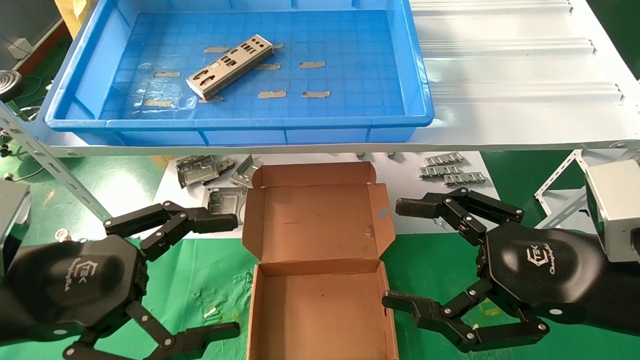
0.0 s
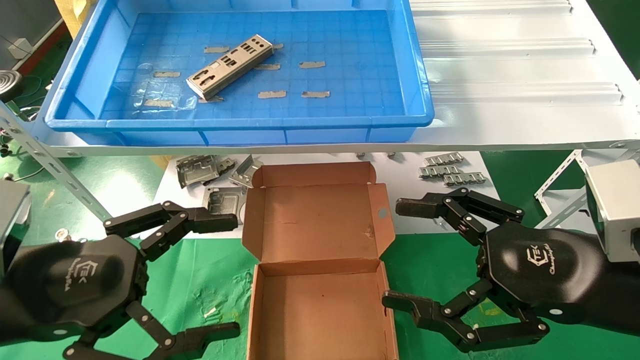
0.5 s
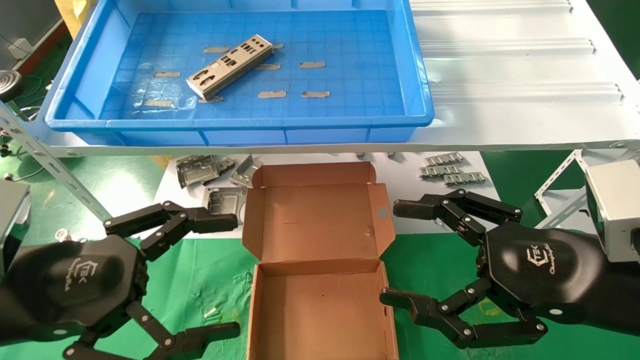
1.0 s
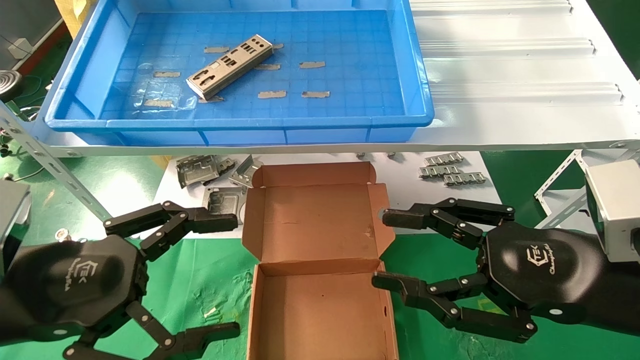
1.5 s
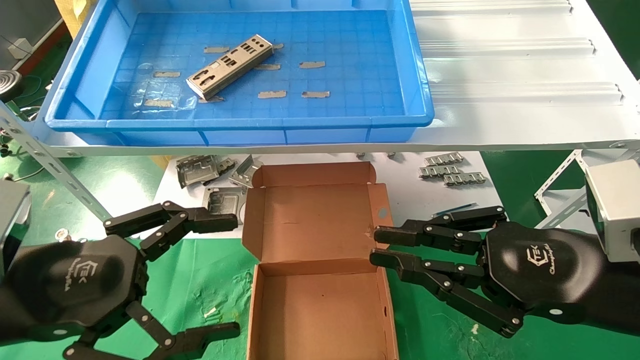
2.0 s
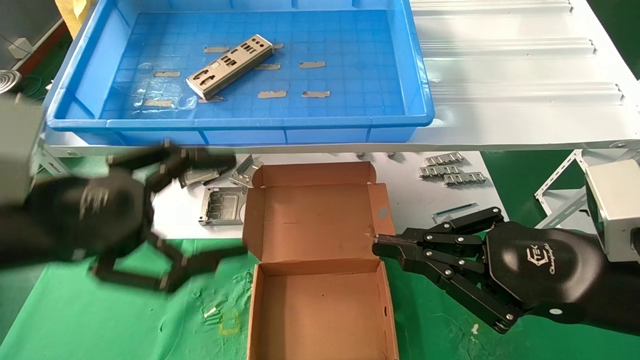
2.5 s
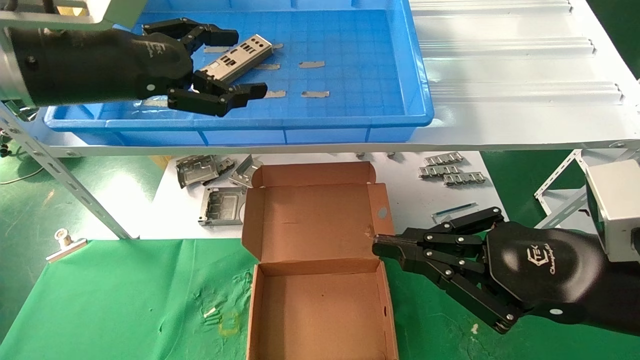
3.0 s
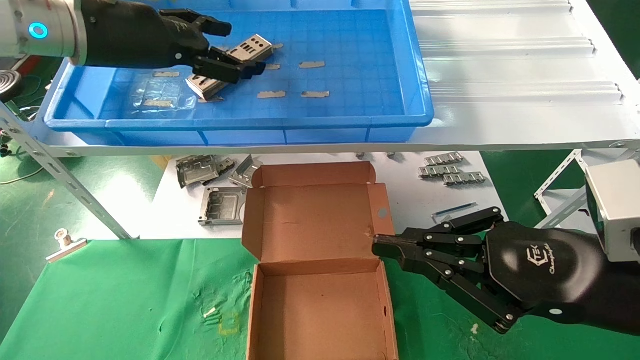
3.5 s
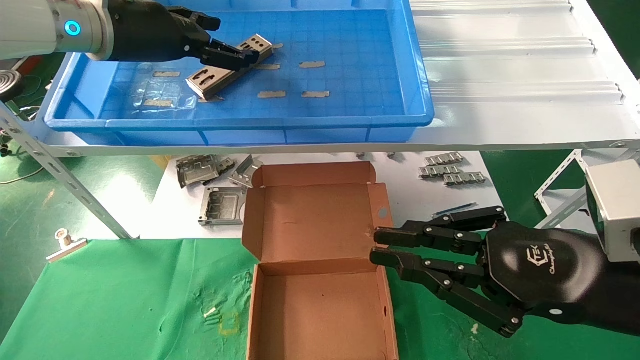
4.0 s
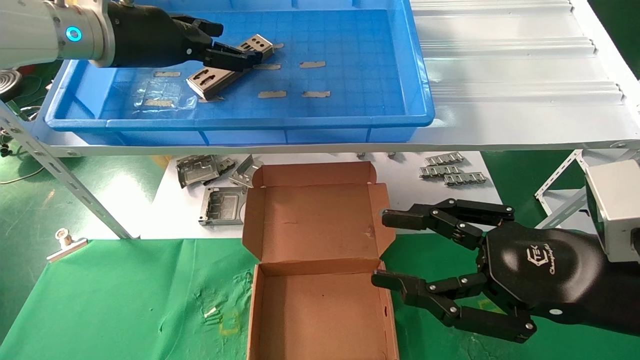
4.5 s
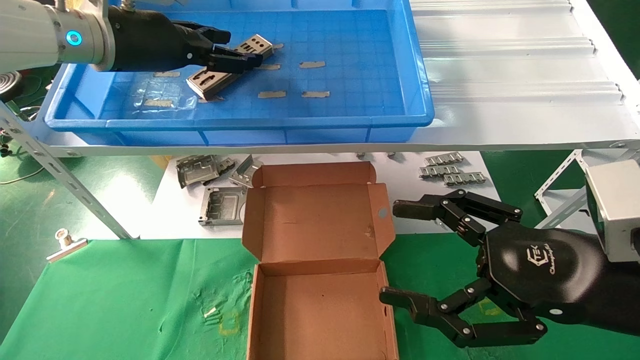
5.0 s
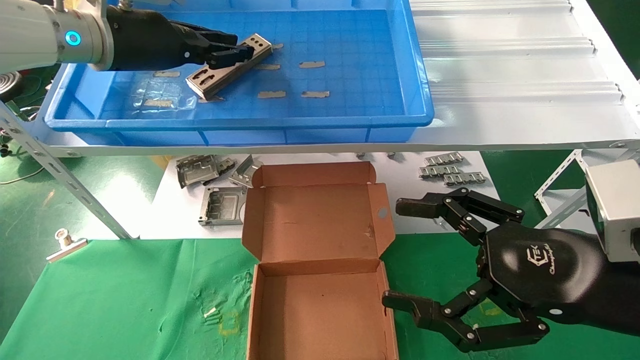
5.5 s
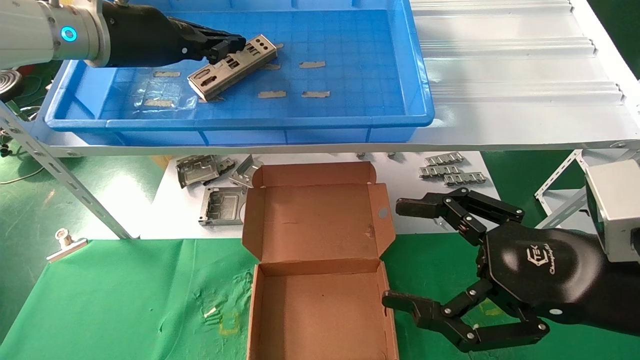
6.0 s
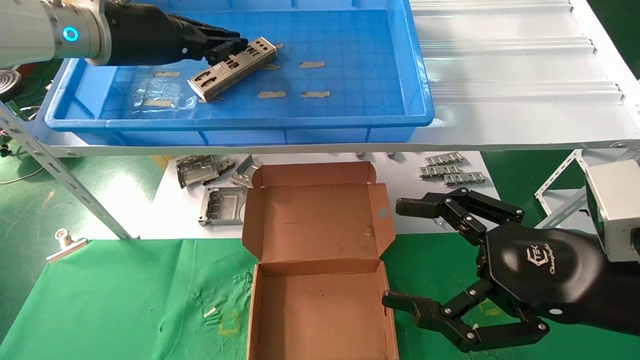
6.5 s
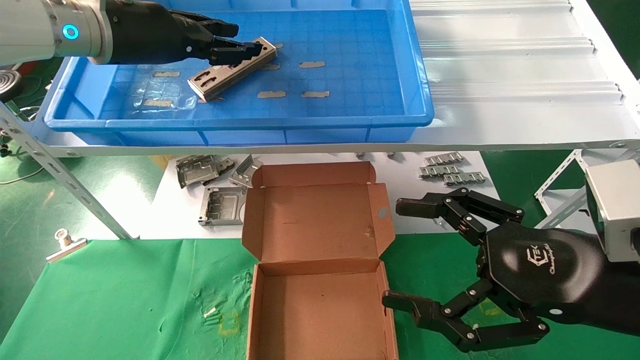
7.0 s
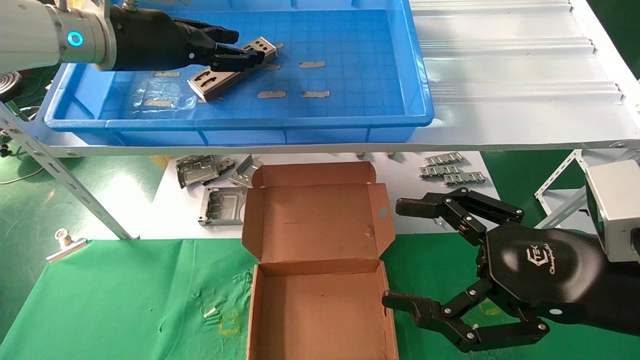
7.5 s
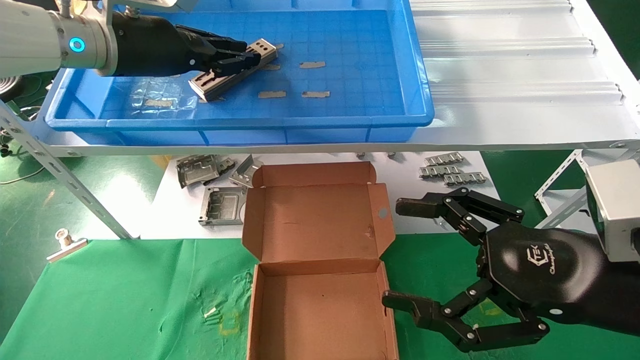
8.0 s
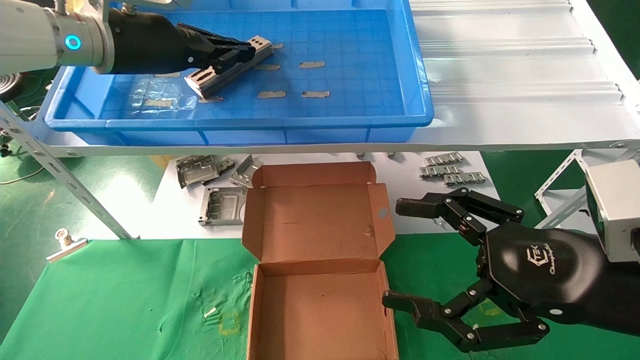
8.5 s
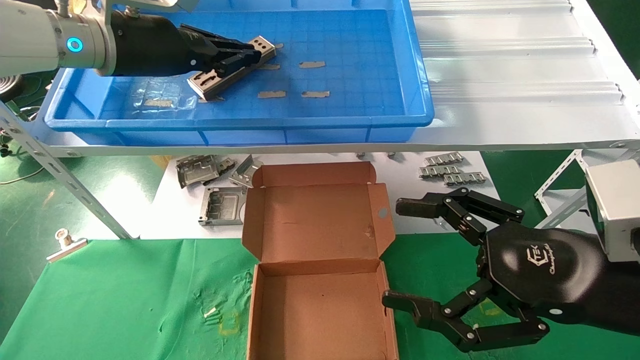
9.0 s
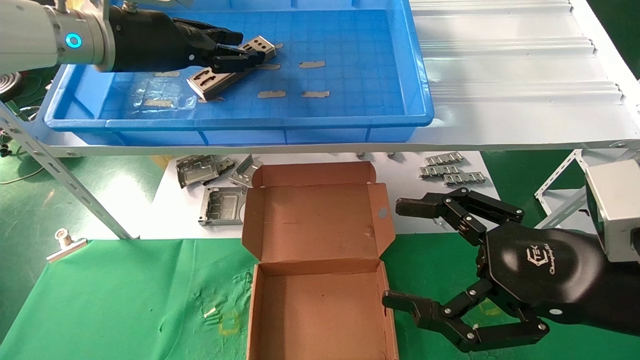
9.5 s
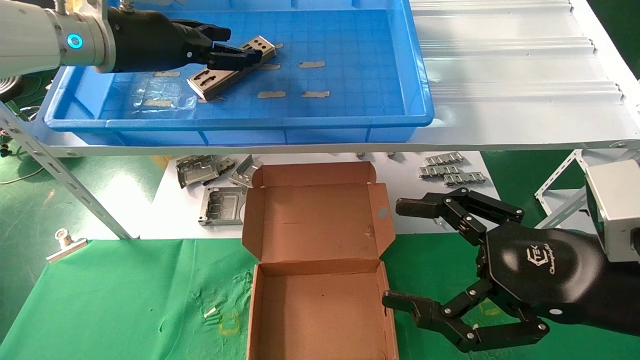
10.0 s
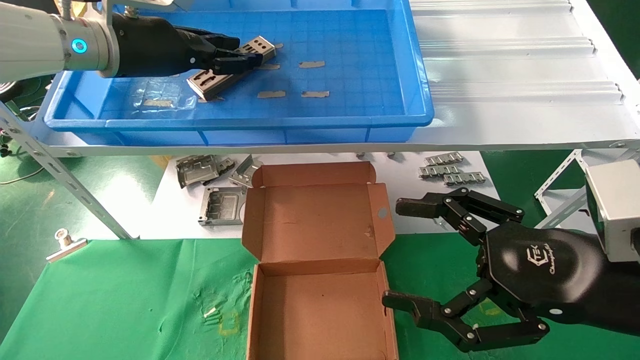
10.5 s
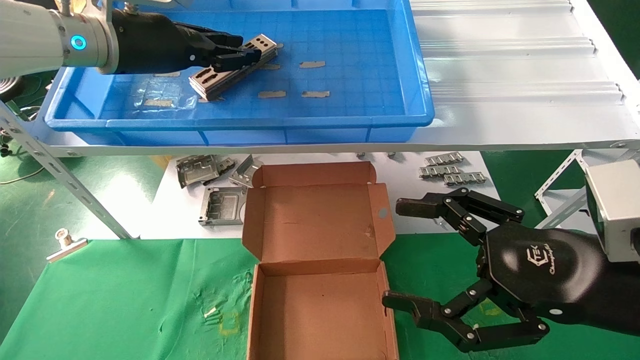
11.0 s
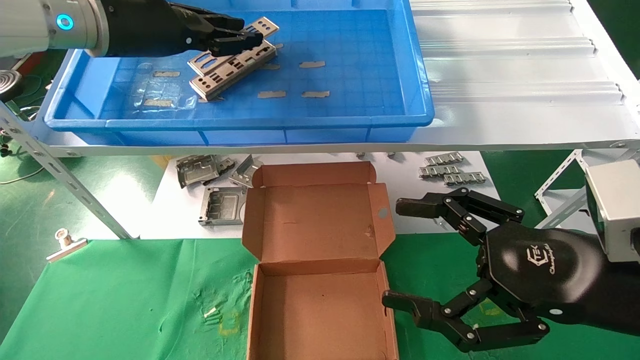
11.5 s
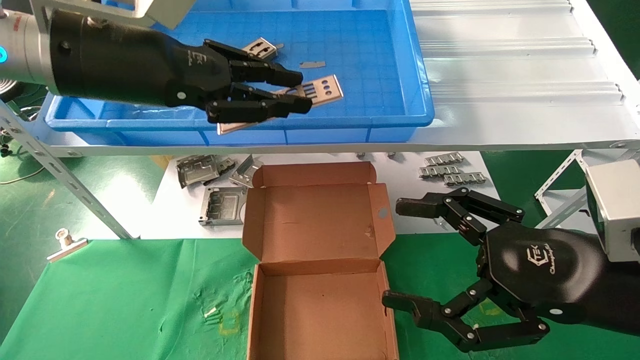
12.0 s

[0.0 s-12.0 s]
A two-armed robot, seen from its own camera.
Task of the whole recording: pick up the parts on the tray and put them in the cardboard box.
Step, 3.0 to 10.5 s: Pick up the IO bracket from the container box.
0.0 to 2.0 s: The right gripper closes up.
2.0 to 4.0 s: The left gripper moves forward and upward, approximately 30 cm.
4.0 to 6.0 s: The right gripper opens up; the left gripper closes.
6.0 to 8.0 s: The two grippers keep their place.
8.0 to 10.0 s: Neither gripper changes place.
10.0 to 12.0 s: The left gripper is displaced backward by approximately 10 cm, and closes.

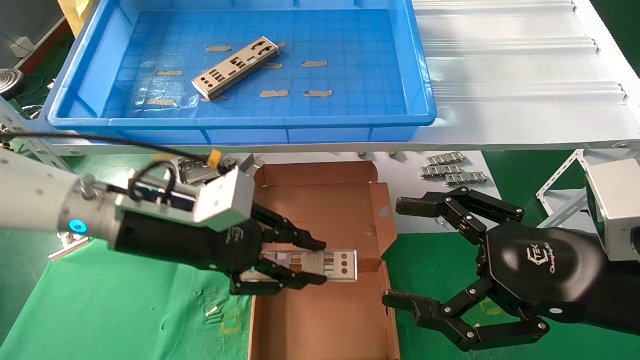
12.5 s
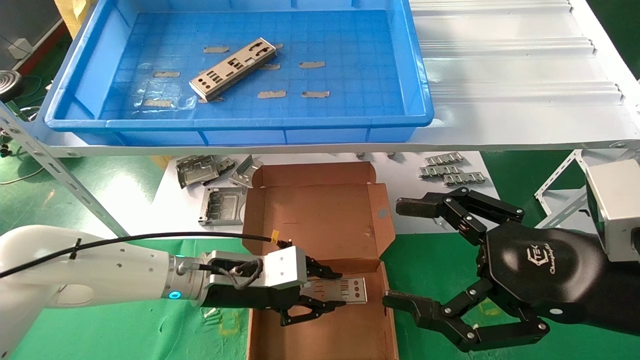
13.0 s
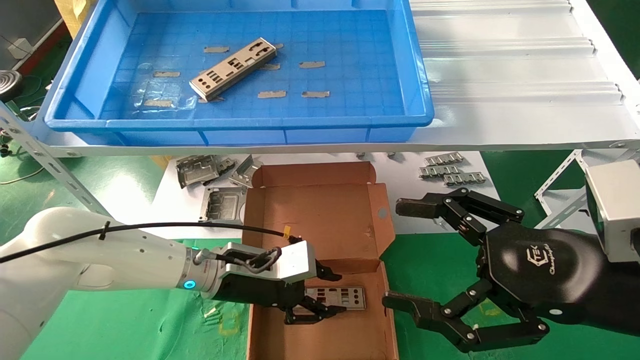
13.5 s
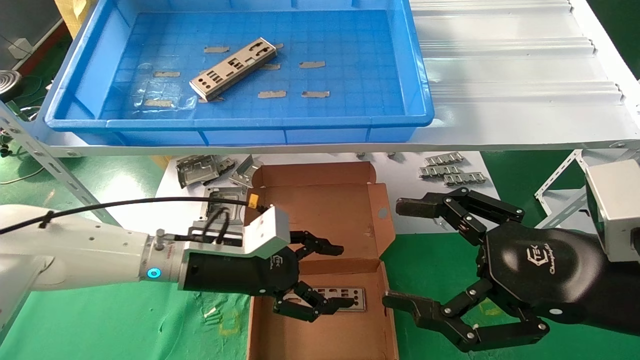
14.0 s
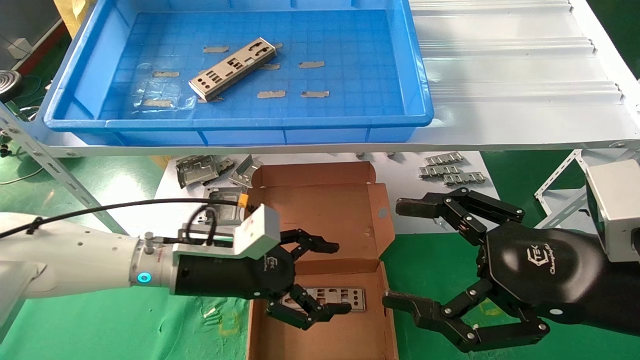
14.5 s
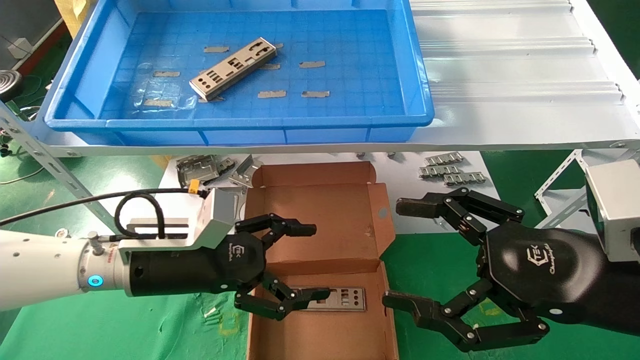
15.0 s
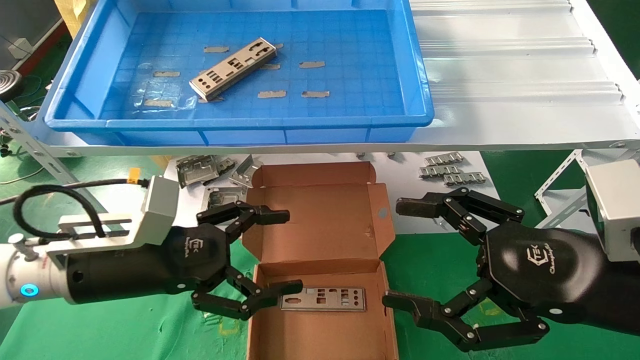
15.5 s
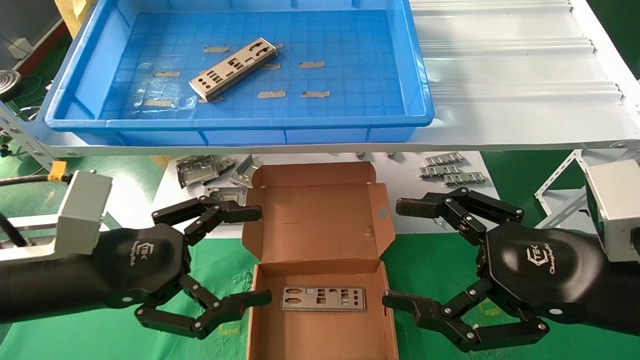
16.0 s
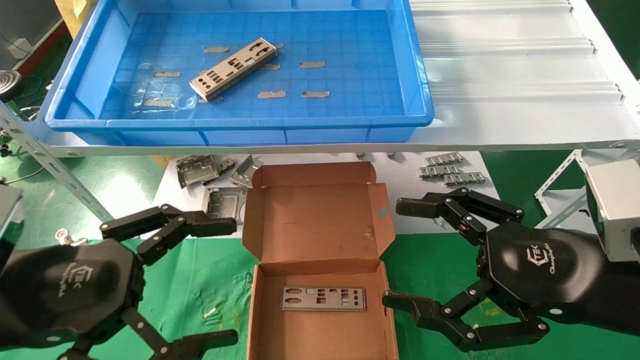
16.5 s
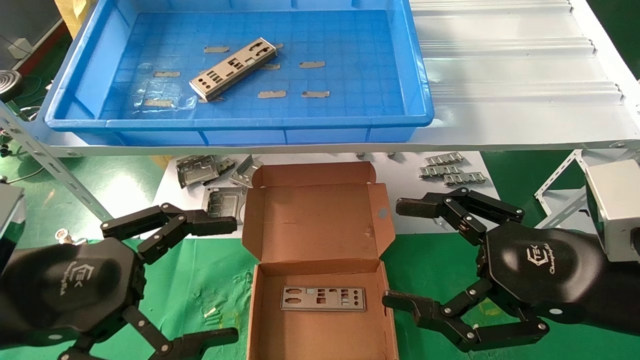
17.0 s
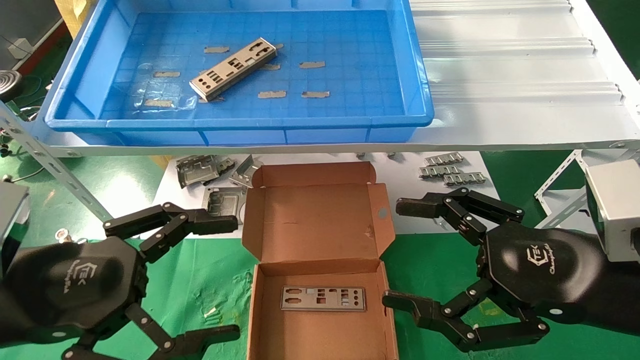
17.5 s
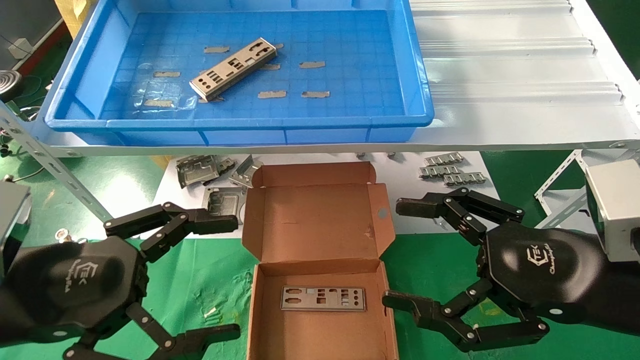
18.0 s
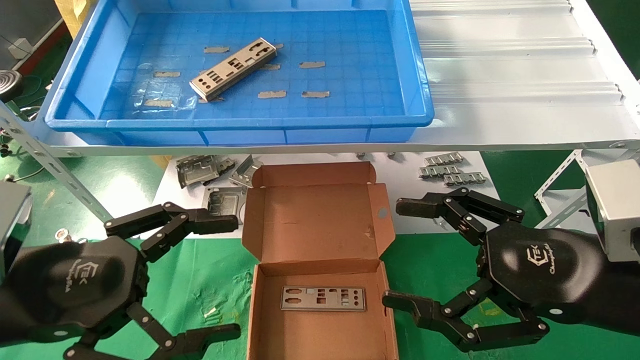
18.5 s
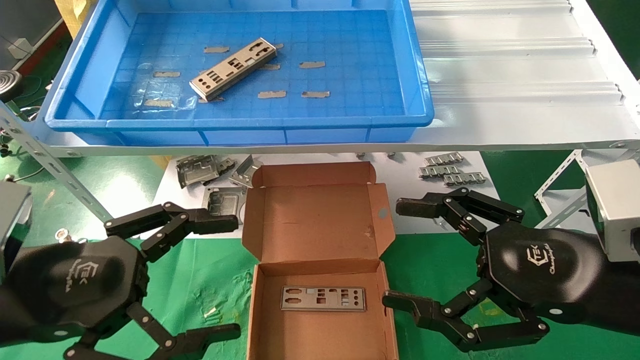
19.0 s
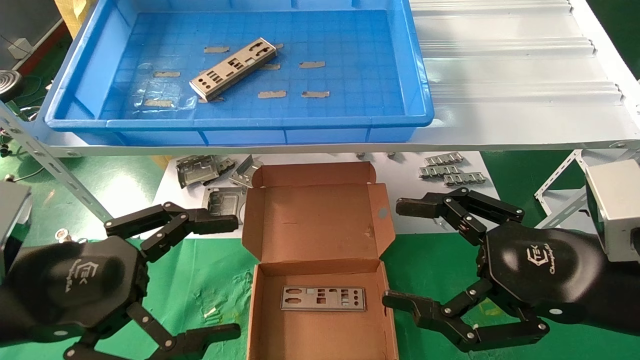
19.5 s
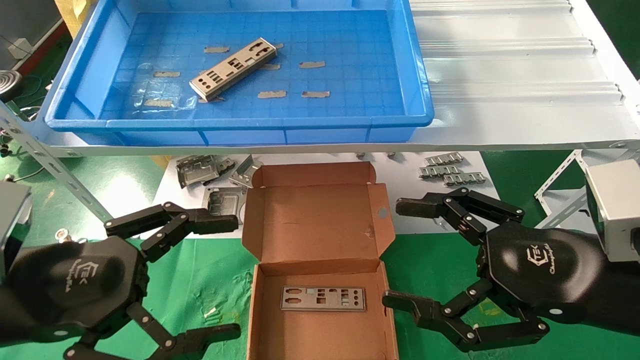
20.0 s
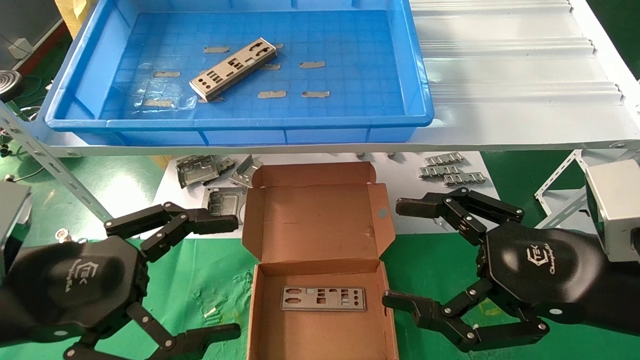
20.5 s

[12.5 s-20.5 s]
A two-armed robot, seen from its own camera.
Task of the whole recording: pick up the parts on the tray and put them in the cardboard box.
12.5 to 14.5 s: The left gripper is displaced downward by roughly 10 cm, and opens.
14.5 to 16.5 s: The left gripper is displaced backward, to the left and upward by some 20 cm.
16.5 to 20.5 s: The two grippers keep their place.
